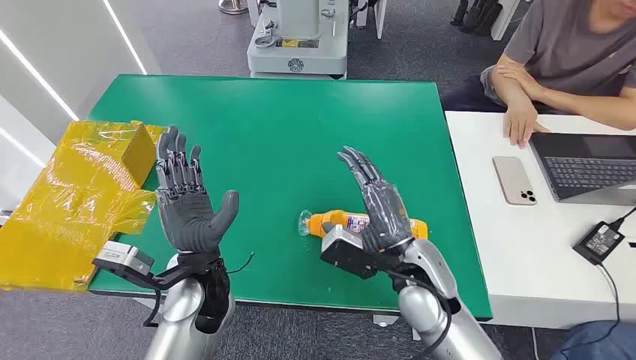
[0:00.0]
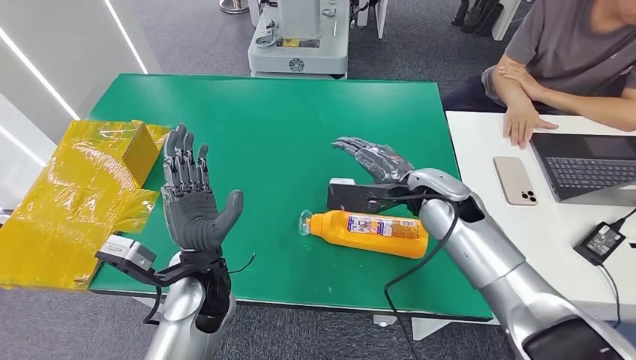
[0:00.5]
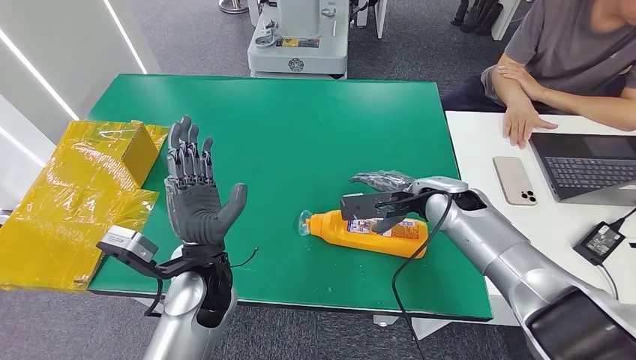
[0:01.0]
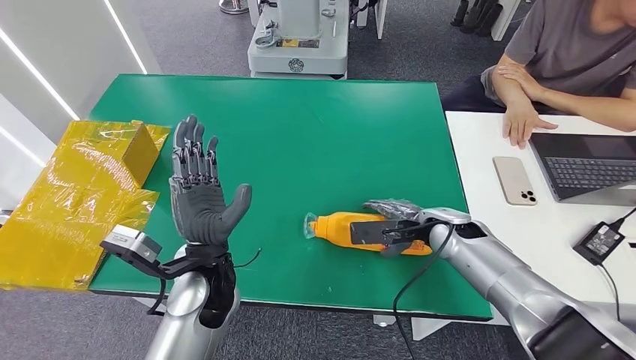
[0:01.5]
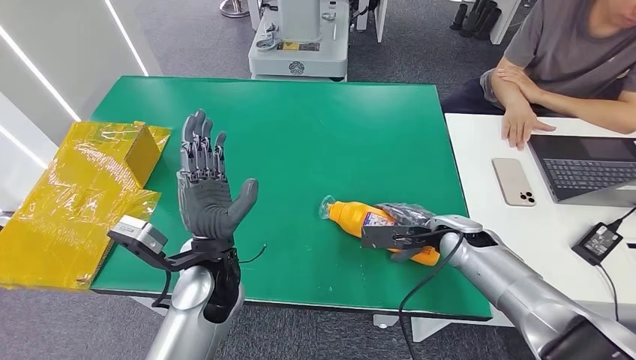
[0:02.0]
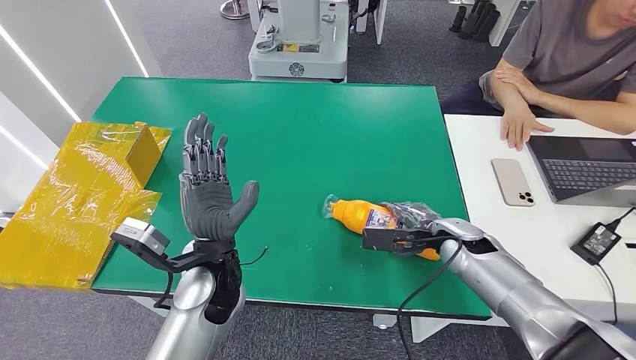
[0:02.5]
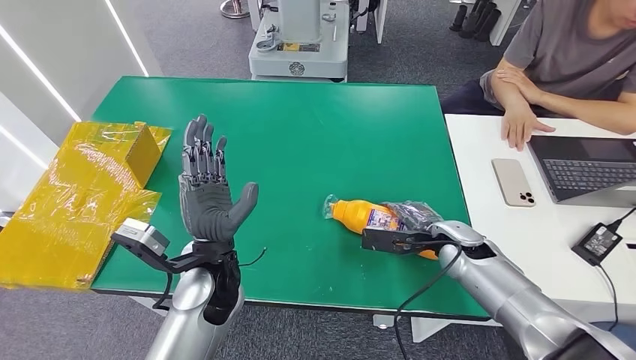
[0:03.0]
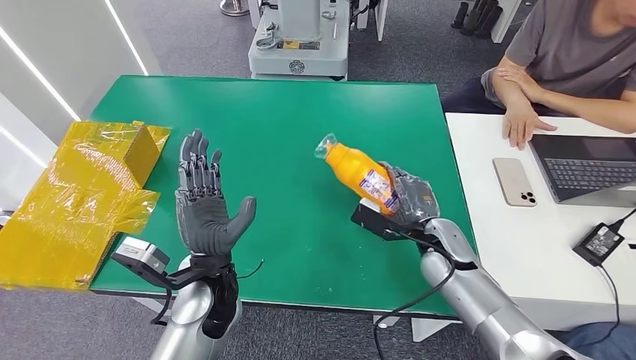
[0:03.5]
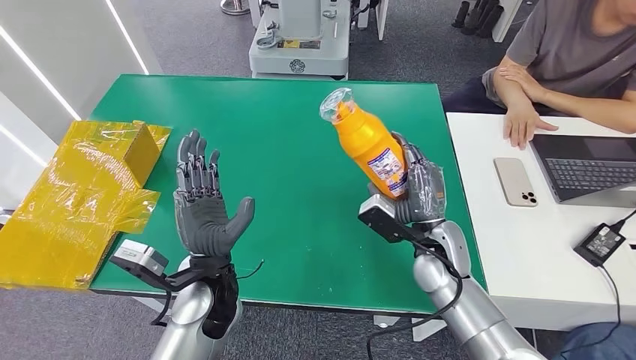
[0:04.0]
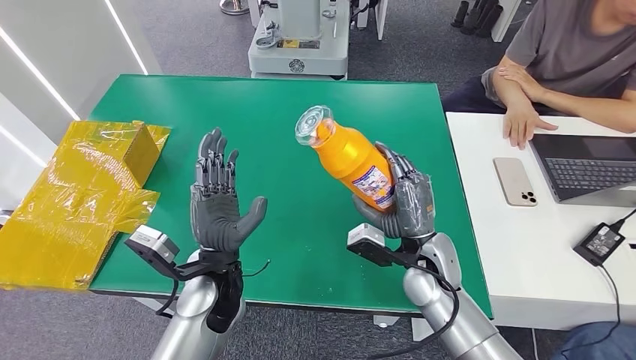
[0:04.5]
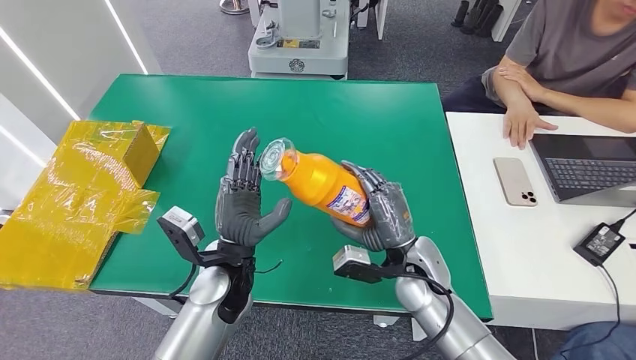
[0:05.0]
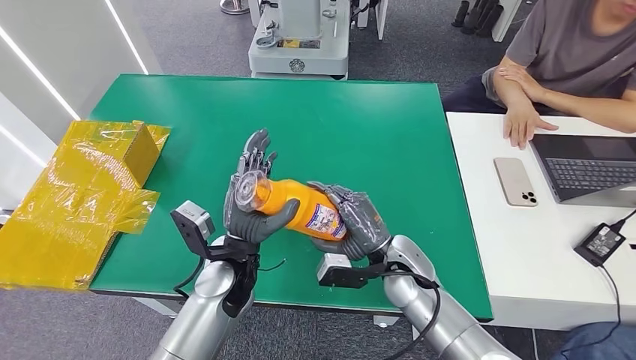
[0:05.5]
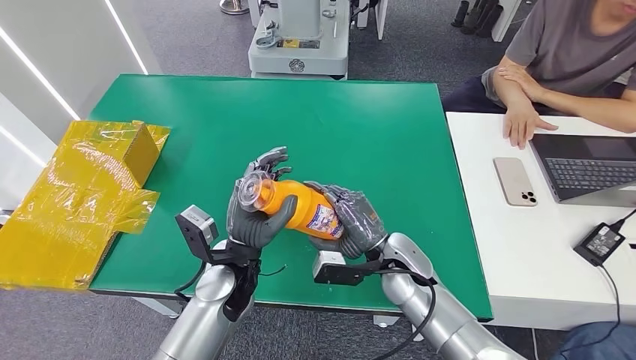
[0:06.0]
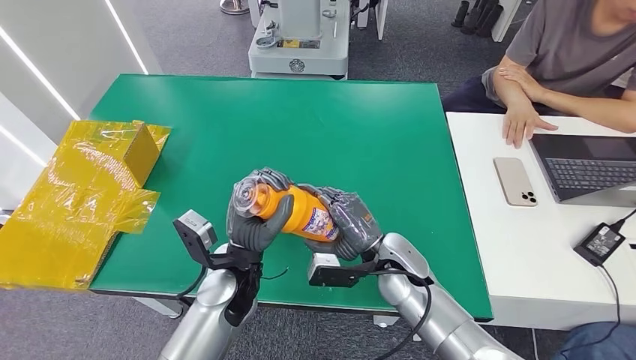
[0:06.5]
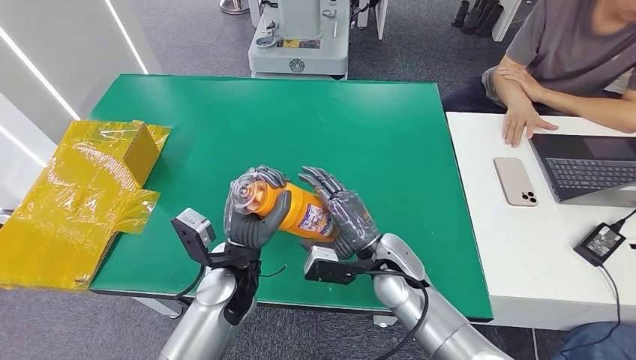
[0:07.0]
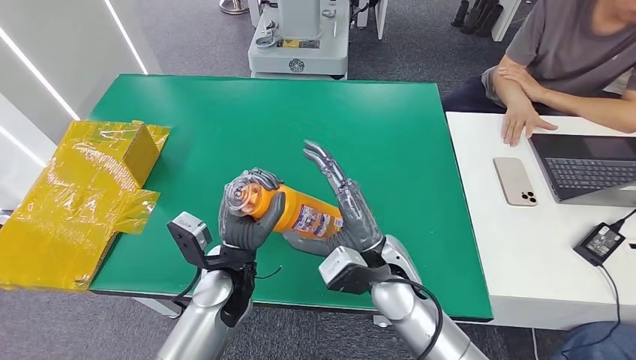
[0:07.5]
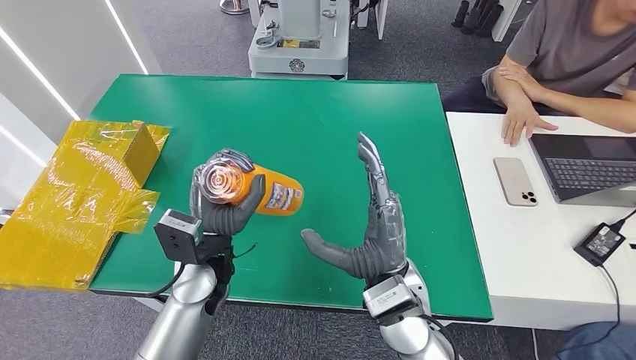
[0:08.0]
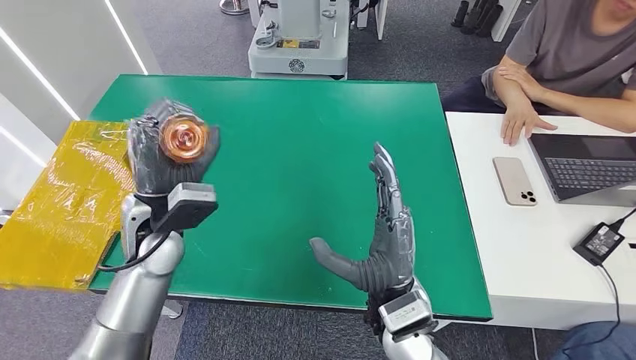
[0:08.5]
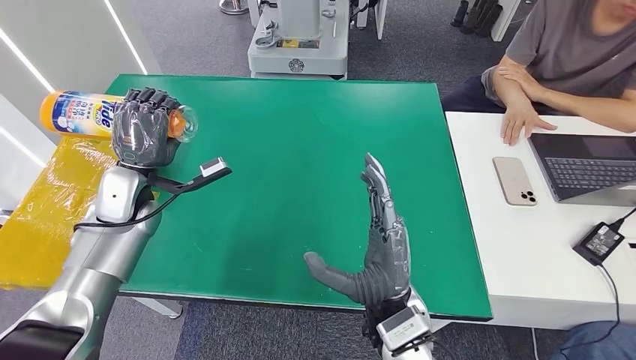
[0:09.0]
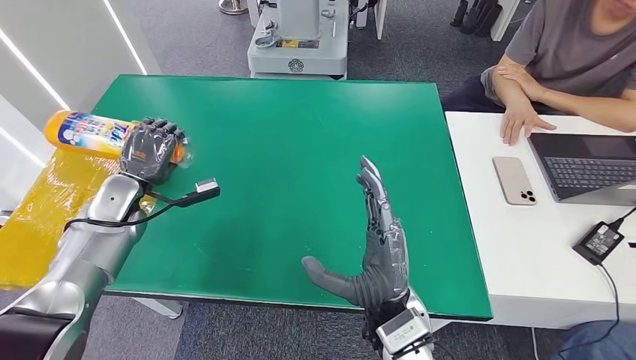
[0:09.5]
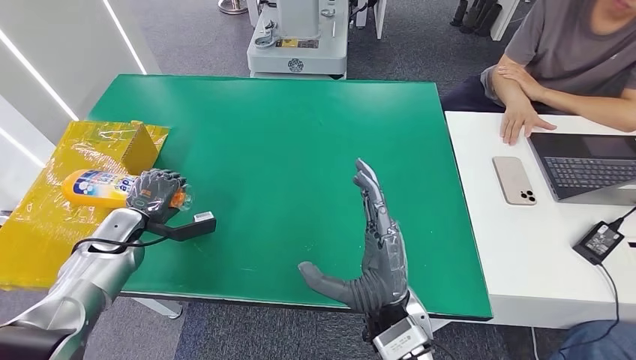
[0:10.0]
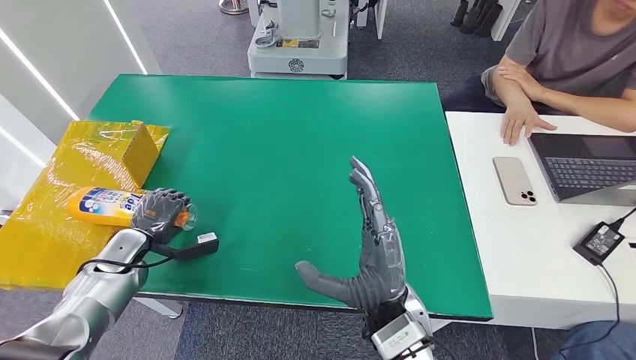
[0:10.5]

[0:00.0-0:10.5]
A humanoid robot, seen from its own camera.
Step, 0:00.0 to 0:04.0: Pick up the bottle from the table.
0:02.0 to 0:04.0: The right hand is displaced to the left by roughly 10 cm.
0:04.0 to 0:06.5: The right hand heads to the left, covering approximately 5 cm.
0:06.5 to 0:08.5: The left hand heads to the left, upward and forward, covering some 15 cm. Meanwhile the right hand travels backward, upward and to the left by some 15 cm.
0:08.5 to 0:10.5: The left hand shifts about 25 cm to the left and downward.

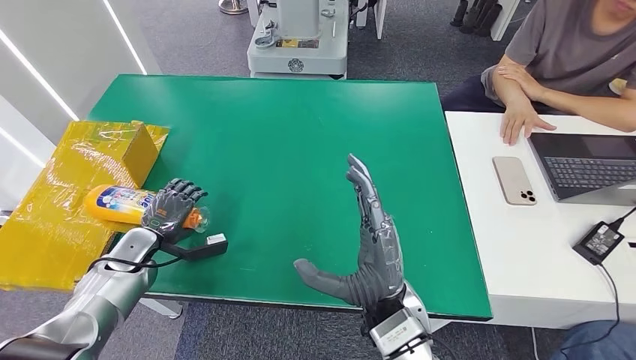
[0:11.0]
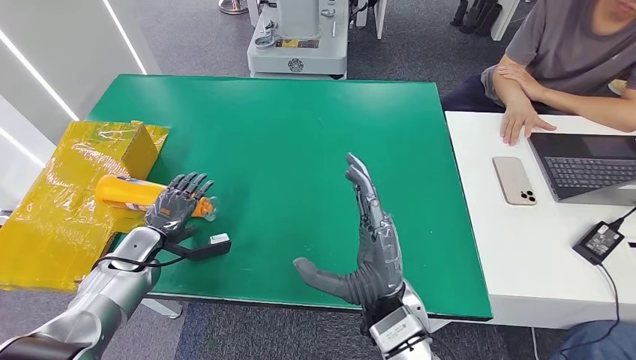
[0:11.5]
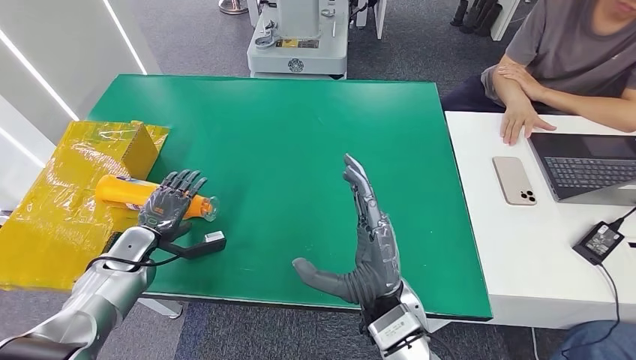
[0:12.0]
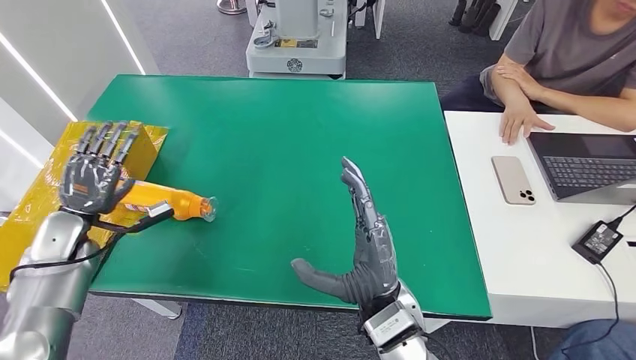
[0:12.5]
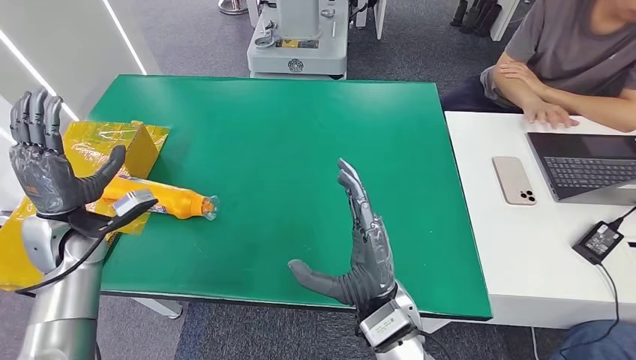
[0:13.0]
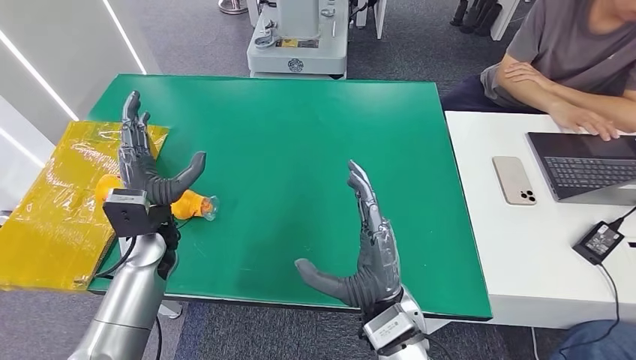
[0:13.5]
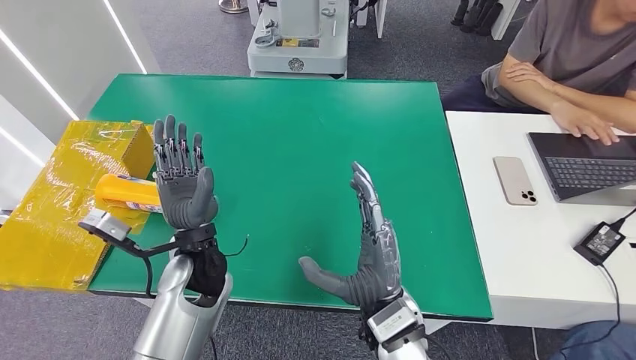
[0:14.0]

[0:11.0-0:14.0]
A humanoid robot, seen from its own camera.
Step, 0:11.0 to 0:14.0: Turn the bottle to the front side.
0:11.0 to 0:12.5: The left hand is displaced upward and to the left by about 10 cm.
0:12.5 to 0:14.0: The left hand shifts approximately 30 cm to the right.
